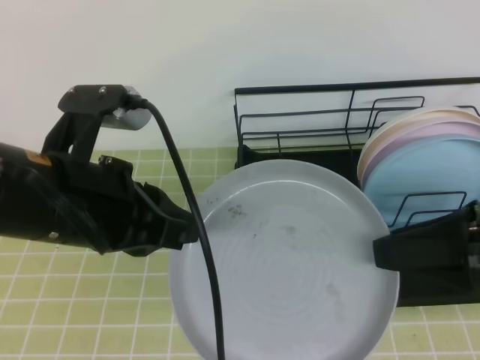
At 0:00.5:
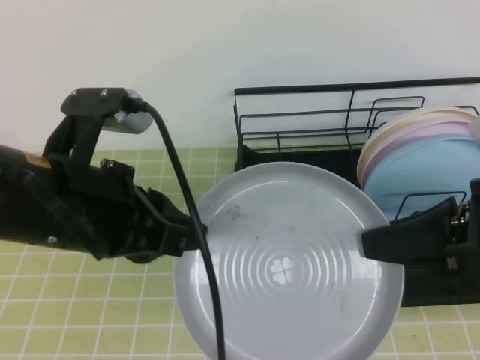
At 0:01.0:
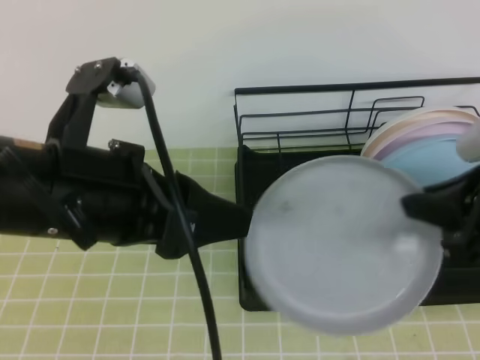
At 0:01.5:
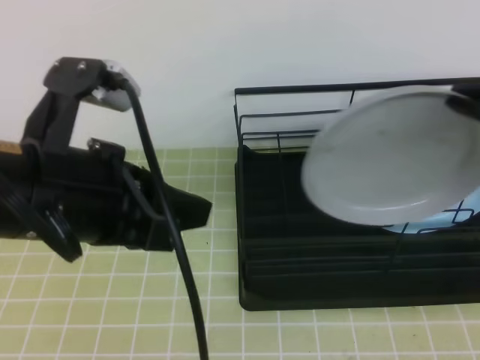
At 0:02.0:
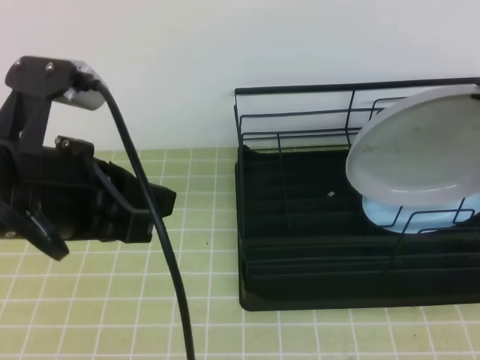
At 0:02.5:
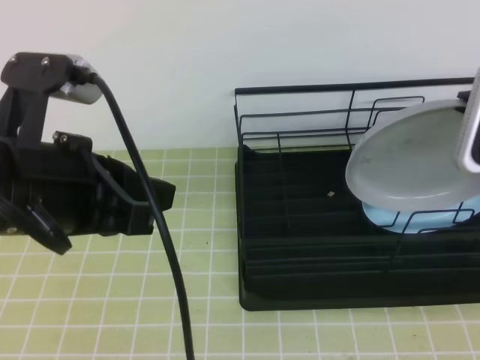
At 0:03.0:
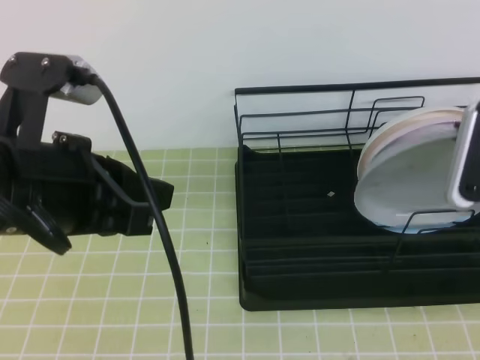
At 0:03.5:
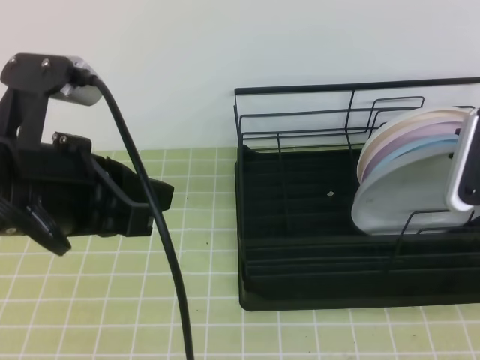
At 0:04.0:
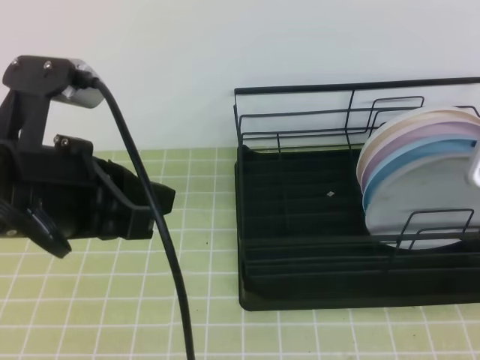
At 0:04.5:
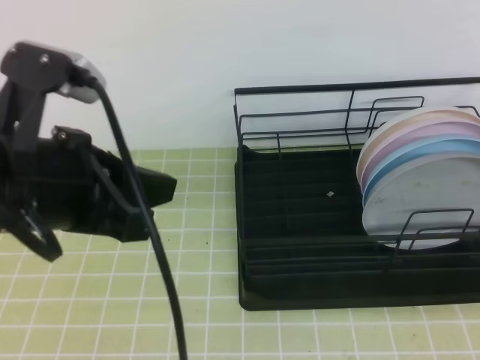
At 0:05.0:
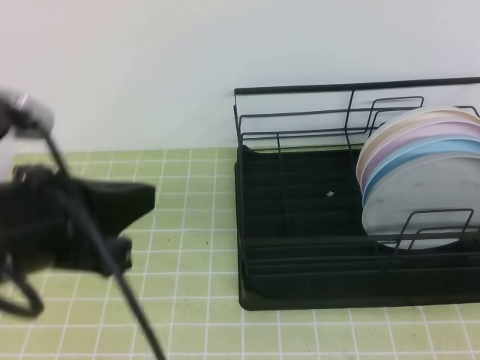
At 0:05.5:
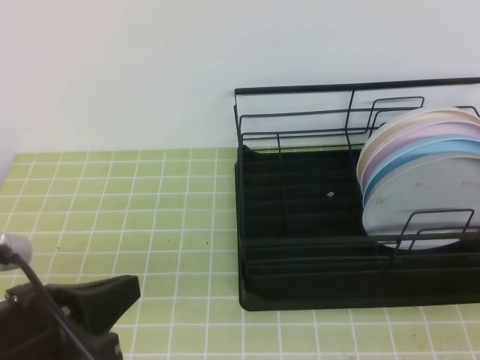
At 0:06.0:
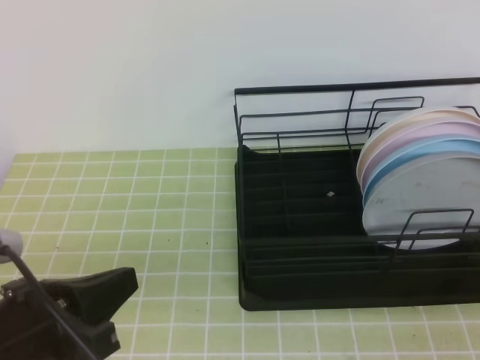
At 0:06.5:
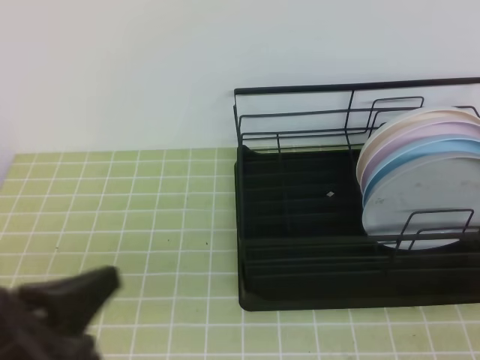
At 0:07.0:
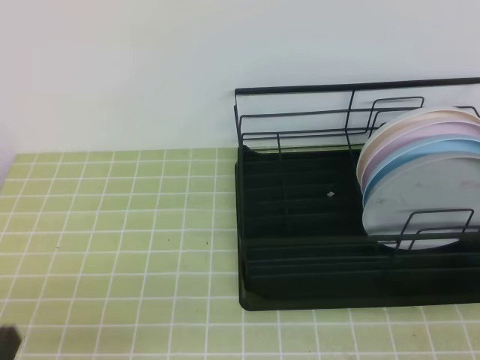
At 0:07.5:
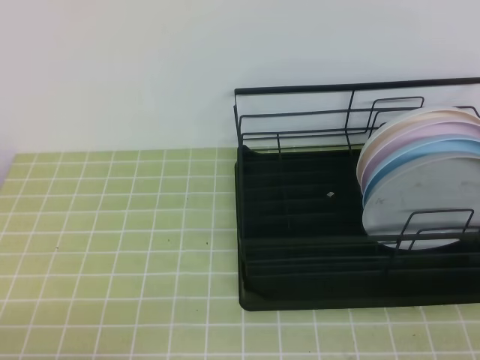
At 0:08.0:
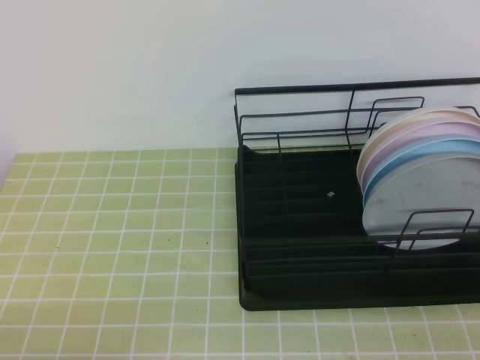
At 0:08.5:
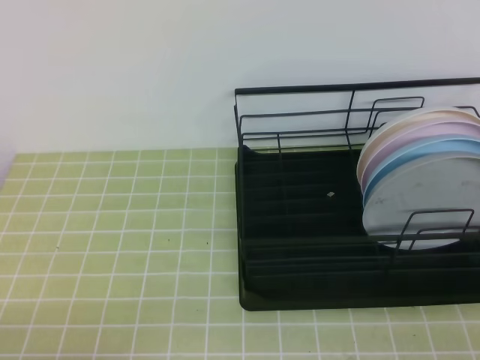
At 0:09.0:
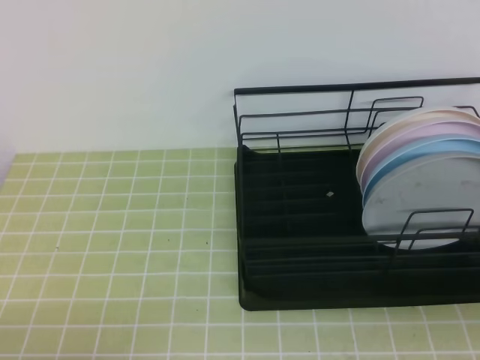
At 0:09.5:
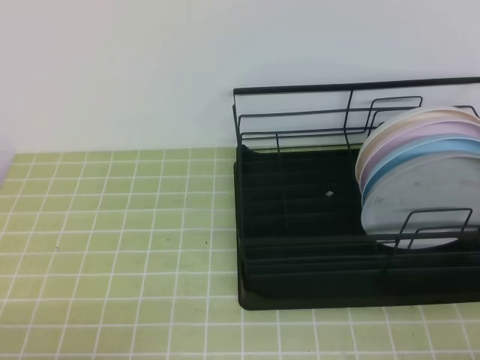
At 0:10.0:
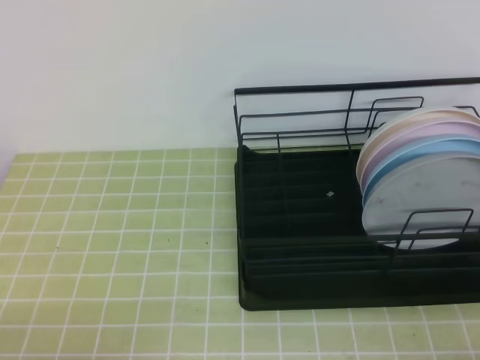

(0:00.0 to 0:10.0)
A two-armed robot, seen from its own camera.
0:00.0 - 0:02.0: The right gripper heads forward, covering roughly 5 cm, and closes. Meanwhile the left gripper opens and closes again.
0:02.0 - 0:04.0: The right gripper changes place by some 5 cm, and opens up.
0:04.0 - 0:06.0: The left gripper travels downward and backward by some 10 cm; the right gripper shifts roughly 20 cm backward, and closes.
0:06.0 - 0:08.0: The left gripper goes roughly 15 cm downward, backward and to the left.
